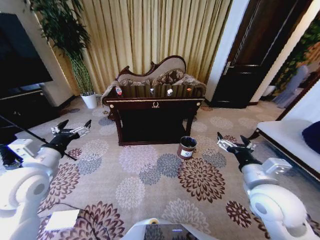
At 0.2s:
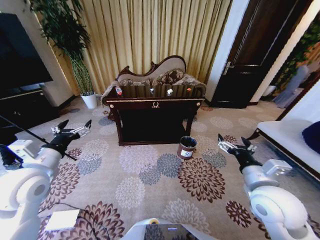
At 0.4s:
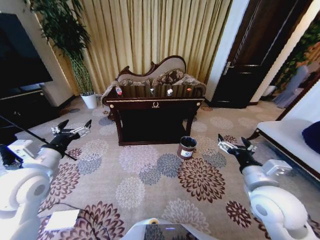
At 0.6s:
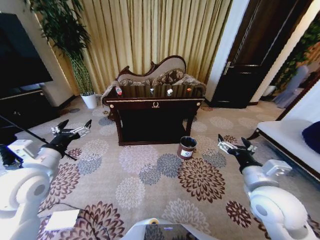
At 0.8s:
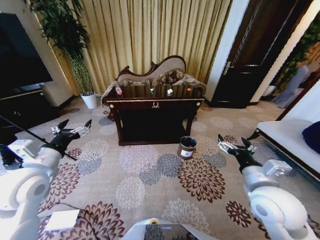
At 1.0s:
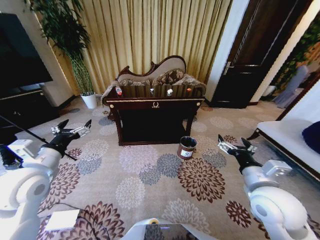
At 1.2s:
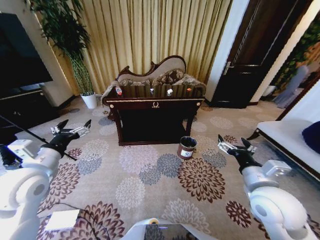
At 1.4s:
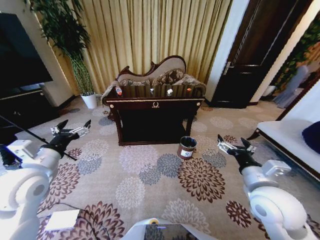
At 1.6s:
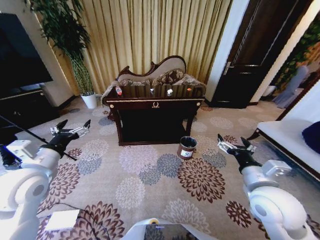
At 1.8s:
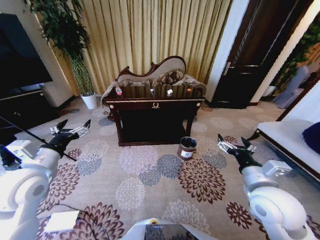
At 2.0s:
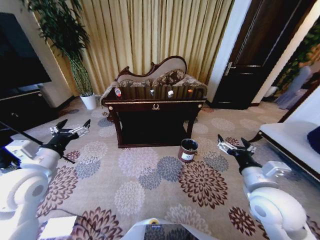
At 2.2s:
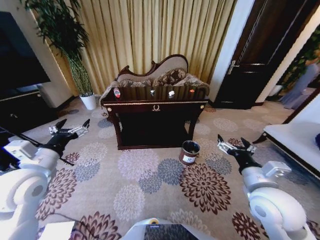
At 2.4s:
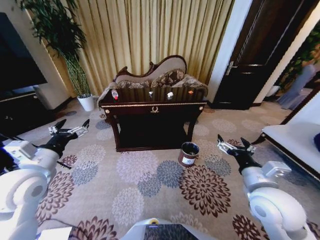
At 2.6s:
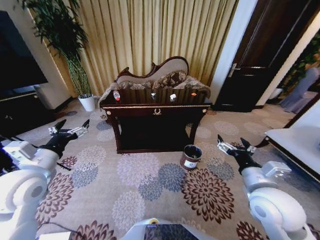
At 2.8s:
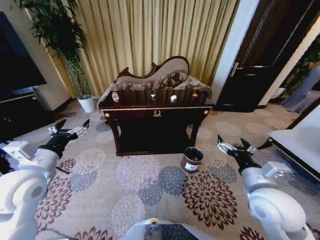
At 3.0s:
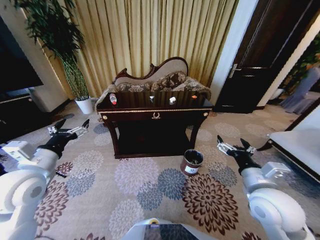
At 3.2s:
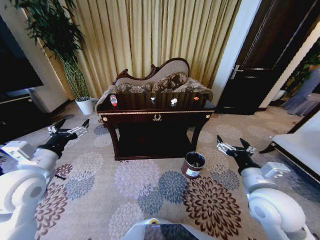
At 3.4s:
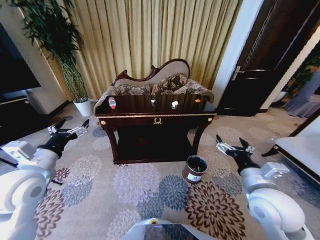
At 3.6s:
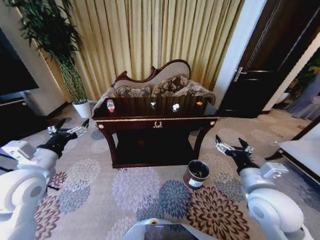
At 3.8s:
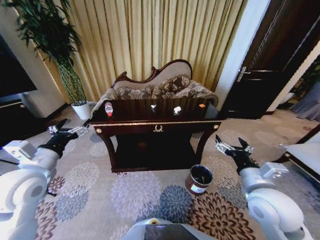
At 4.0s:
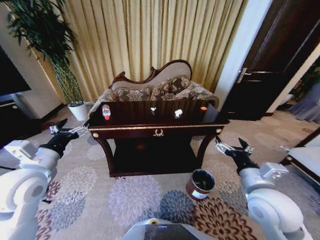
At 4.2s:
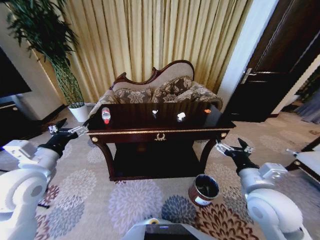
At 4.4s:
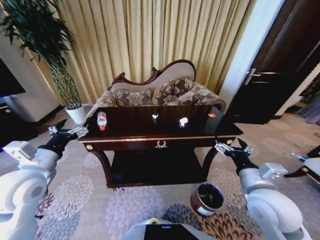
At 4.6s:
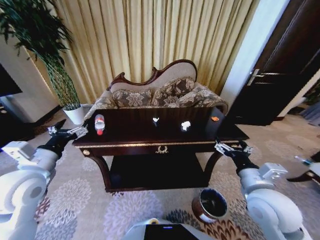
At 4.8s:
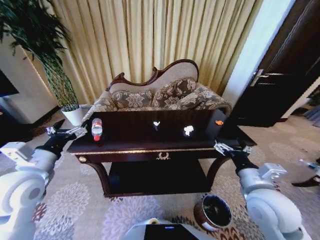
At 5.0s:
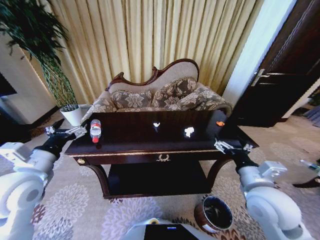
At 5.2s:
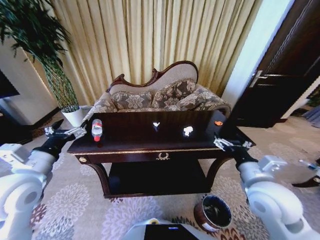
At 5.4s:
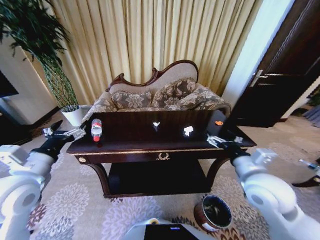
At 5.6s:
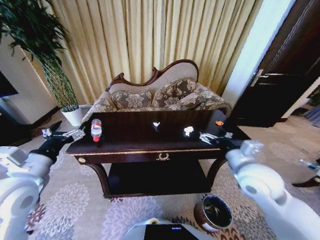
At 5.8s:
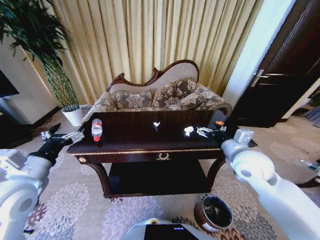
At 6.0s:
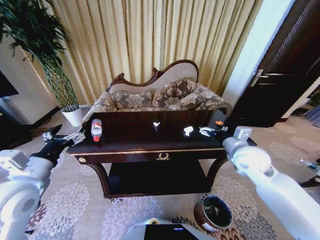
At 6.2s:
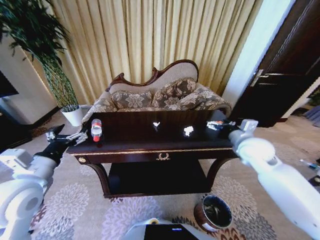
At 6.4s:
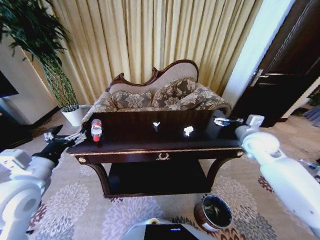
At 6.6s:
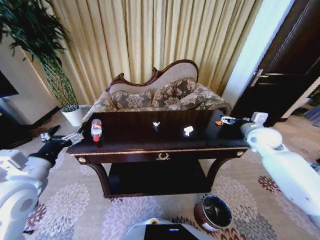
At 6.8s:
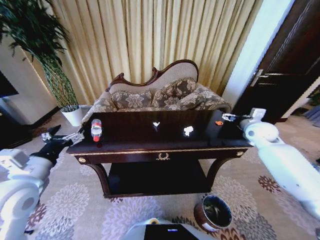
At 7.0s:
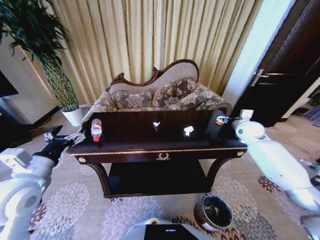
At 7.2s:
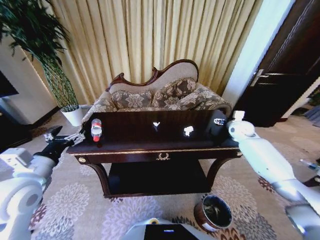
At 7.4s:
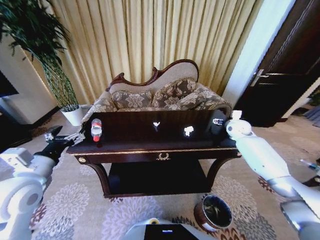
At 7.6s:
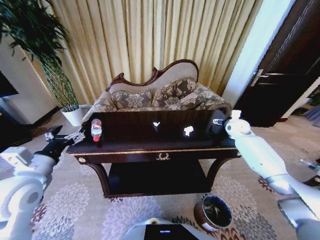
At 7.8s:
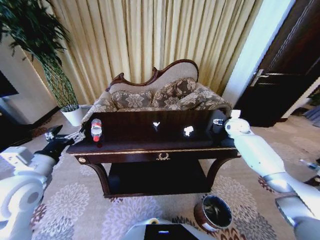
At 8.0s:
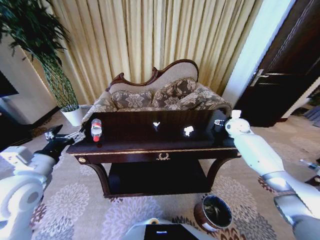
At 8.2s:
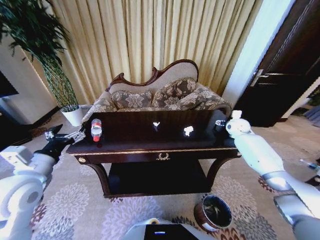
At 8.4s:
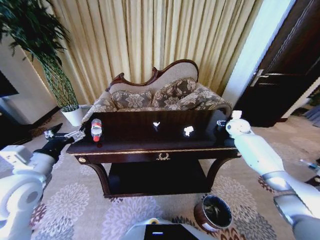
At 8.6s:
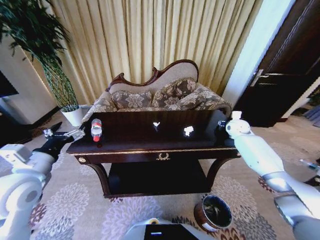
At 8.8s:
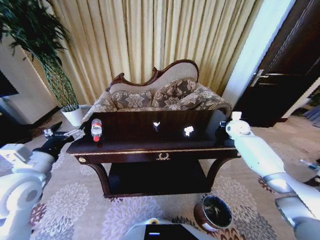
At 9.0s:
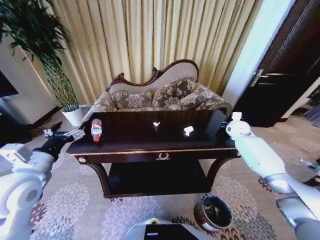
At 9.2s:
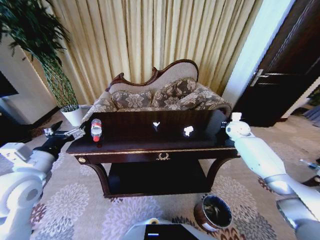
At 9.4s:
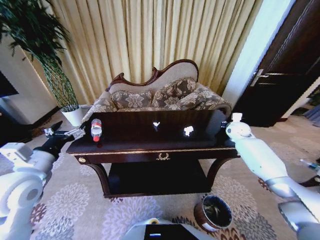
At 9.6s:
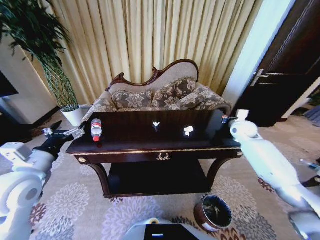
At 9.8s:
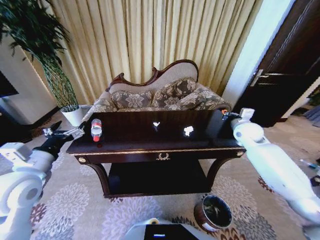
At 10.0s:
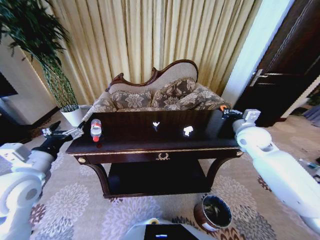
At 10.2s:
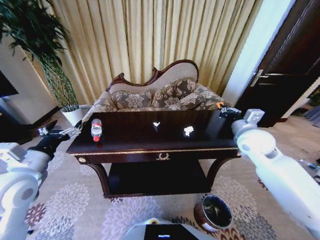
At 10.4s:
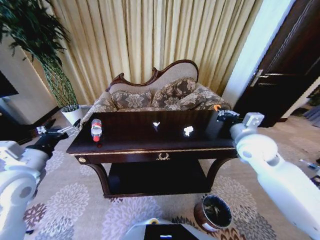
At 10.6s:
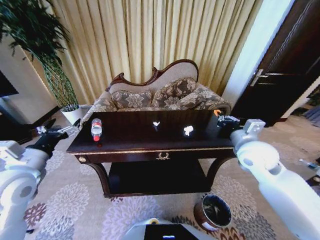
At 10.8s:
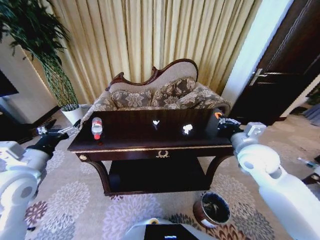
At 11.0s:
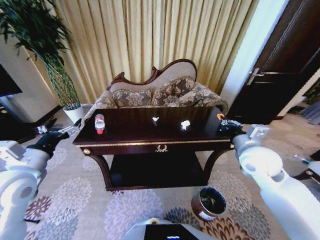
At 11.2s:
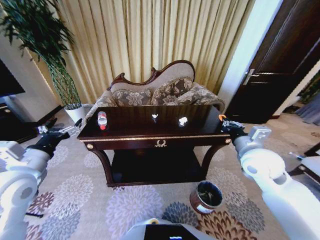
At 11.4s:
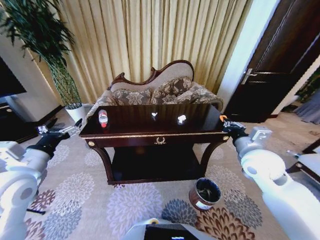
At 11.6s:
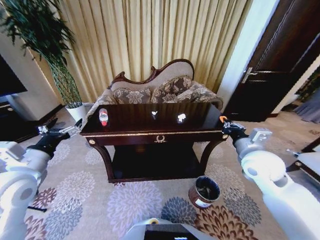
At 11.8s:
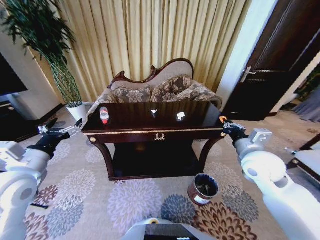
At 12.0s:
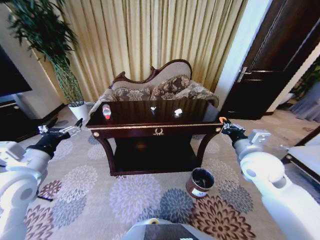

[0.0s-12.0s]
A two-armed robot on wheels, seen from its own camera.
Task of the whole recording: Move to the front of the table and place the trash on the table into the trash bin.
4.4s to 6.0s: The right gripper heads forward, covering approximately 15 cm.
6.0s to 7.6s: The right gripper travels forward and to the right by roughly 25 cm.
7.6s to 9.0s: The right gripper closes its fingers.
9.0s to 10.4s: The right gripper shifts roughly 25 cm backward, to the left and upward.
10.4s to 12.0s: The right gripper goes roughly 5 cm backward.

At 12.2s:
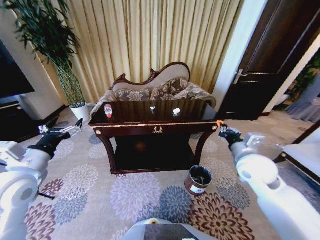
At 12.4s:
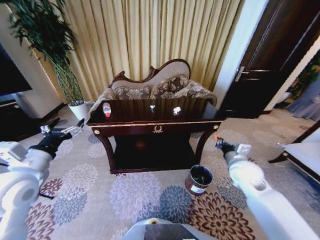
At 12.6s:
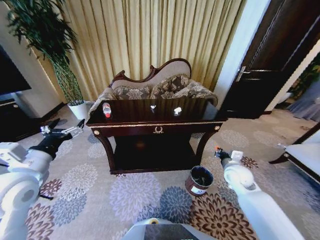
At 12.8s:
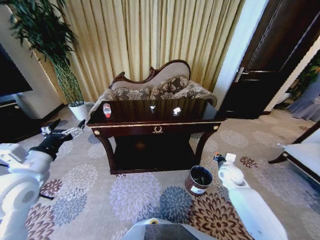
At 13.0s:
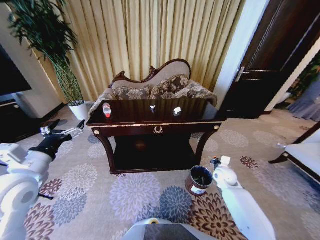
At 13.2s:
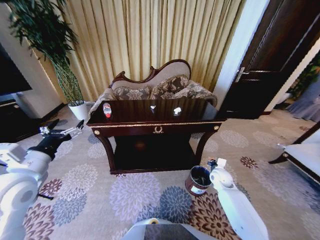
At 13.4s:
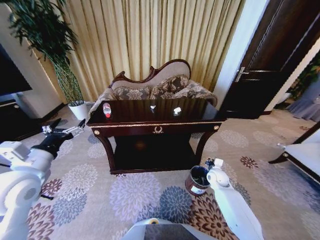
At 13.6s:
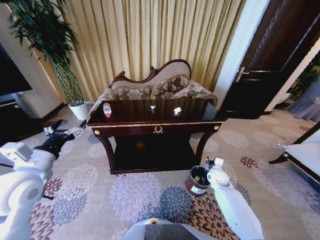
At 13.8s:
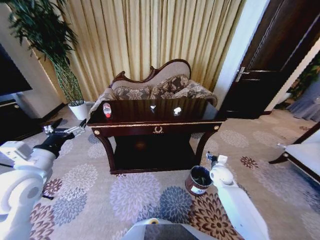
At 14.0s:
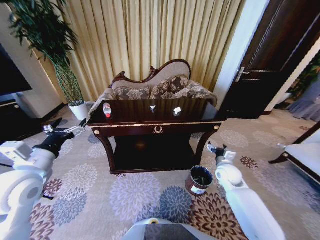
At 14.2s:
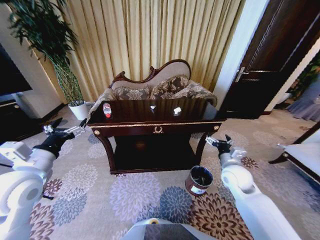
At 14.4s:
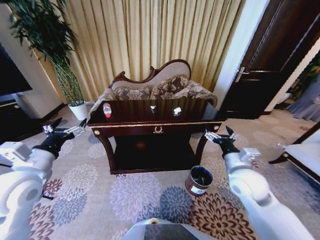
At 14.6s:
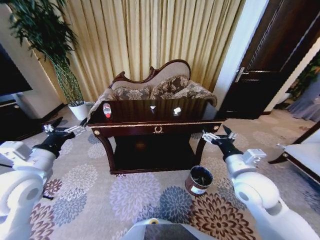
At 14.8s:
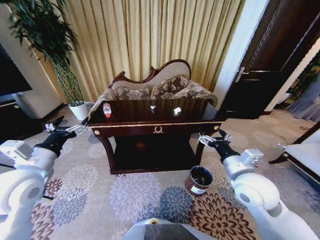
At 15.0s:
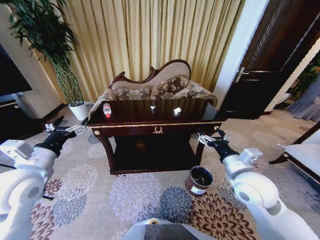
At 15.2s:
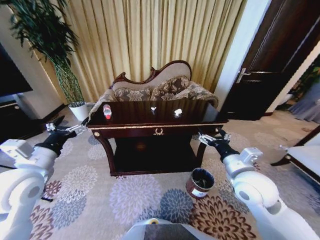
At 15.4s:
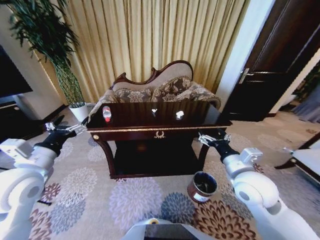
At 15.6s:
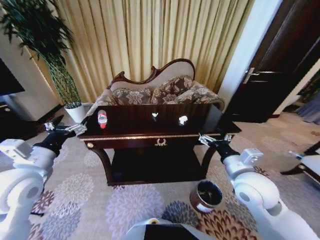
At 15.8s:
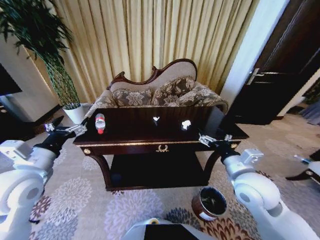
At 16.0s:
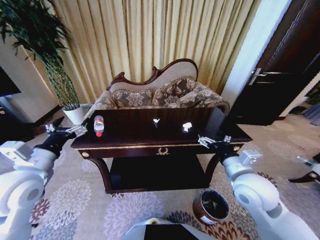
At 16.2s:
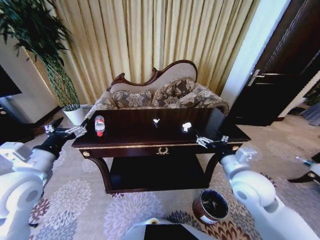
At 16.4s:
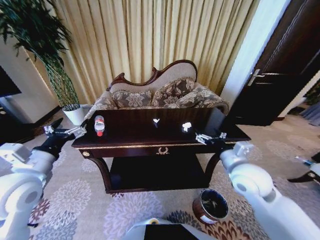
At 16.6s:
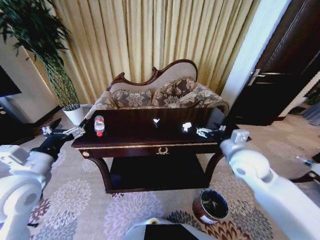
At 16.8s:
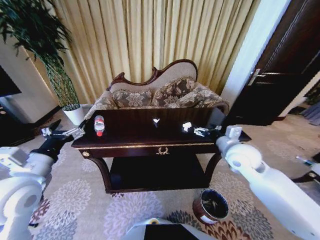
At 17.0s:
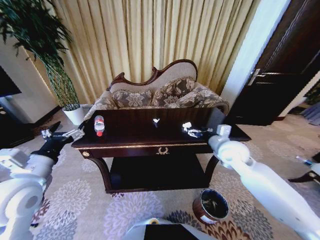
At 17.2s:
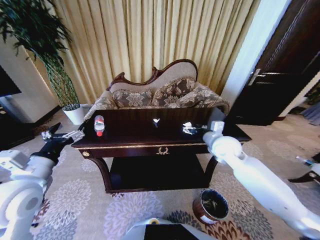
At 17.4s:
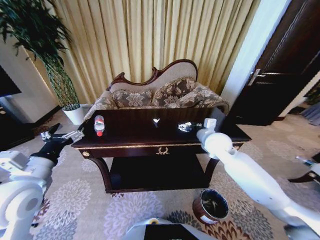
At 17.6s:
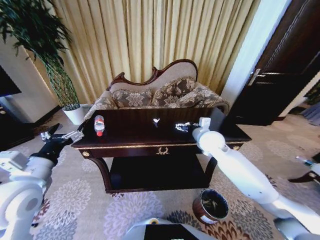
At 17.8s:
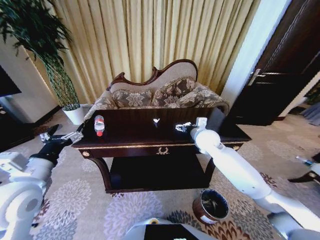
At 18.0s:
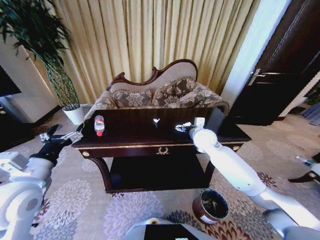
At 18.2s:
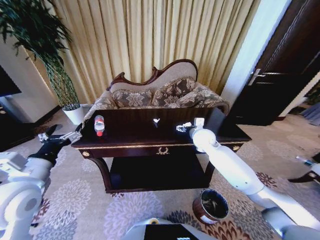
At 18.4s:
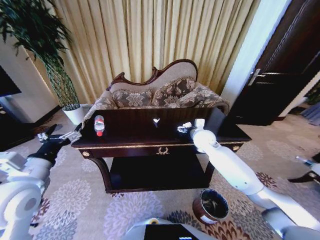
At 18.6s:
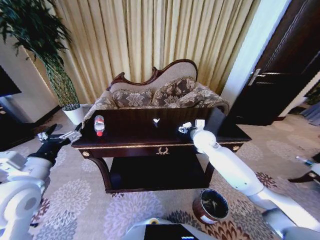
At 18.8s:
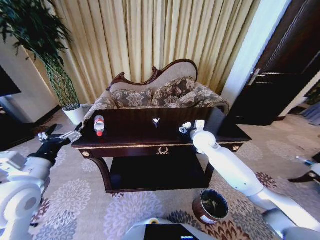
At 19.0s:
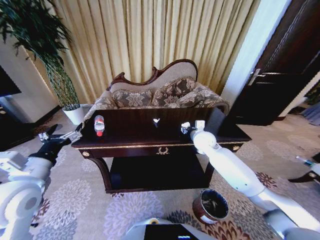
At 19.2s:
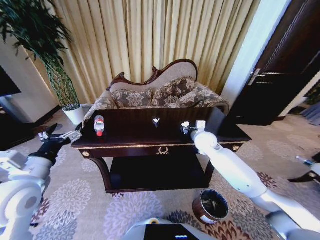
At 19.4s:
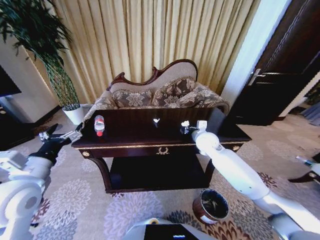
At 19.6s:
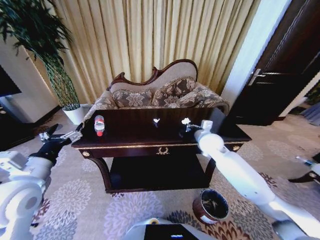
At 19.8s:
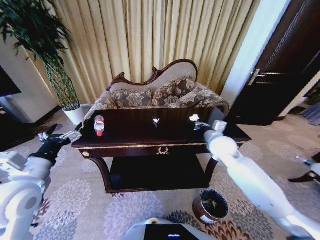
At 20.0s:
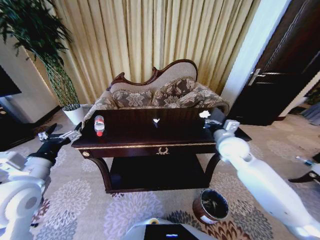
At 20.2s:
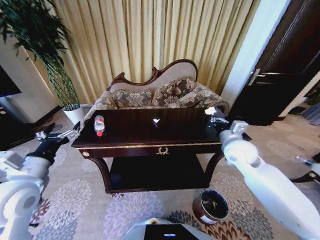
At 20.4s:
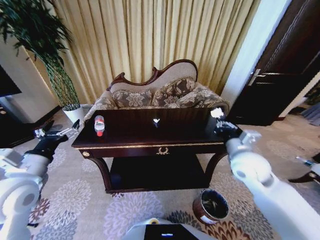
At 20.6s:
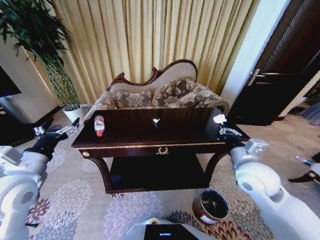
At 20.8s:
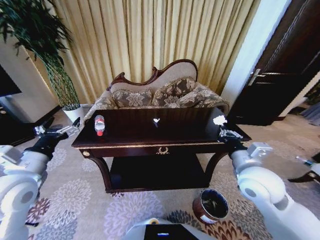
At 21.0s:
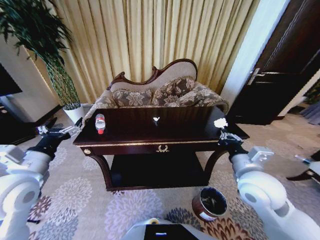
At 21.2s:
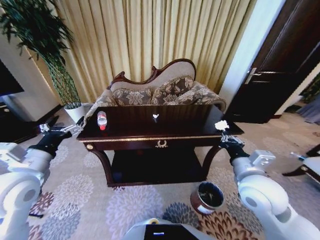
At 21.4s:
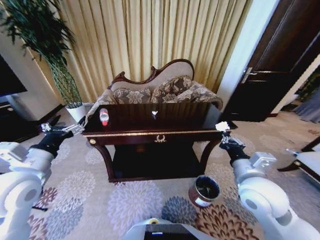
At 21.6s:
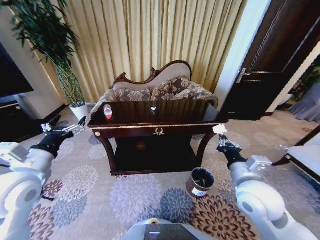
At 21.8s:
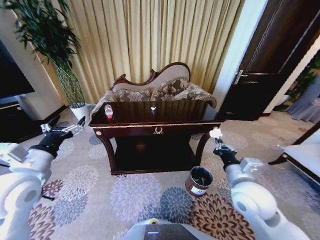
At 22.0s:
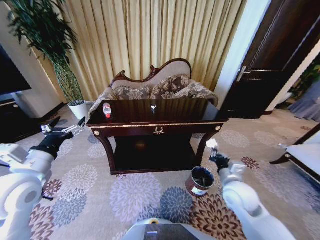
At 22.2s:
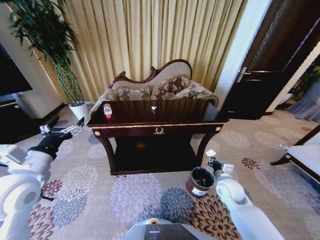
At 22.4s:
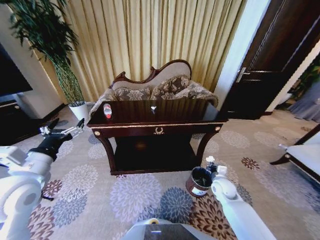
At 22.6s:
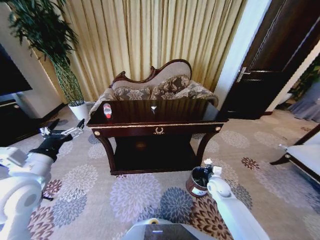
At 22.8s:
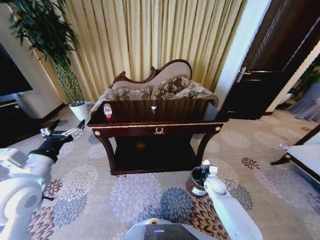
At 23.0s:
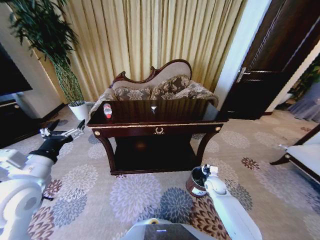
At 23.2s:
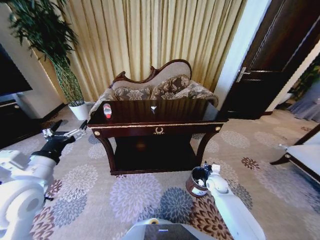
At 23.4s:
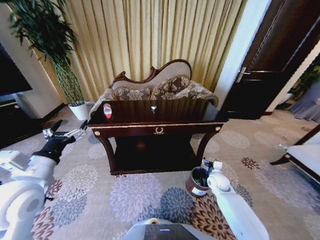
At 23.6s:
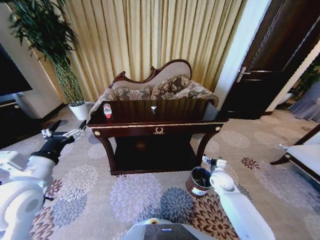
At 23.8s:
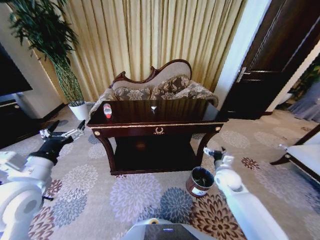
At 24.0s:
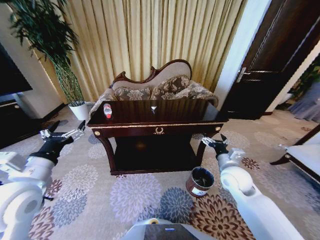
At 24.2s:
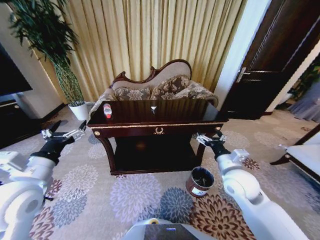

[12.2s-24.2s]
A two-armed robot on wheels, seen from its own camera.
Task of the whole recording: Move to the front of the table and place the trash on the table into the trash bin.
12.2s to 13.8s: The right gripper heads downward, covering about 20 cm, and opens.
13.8s to 15.2s: The right gripper goes about 25 cm upward and backward, and opens up.
15.2s to 16.6s: The right gripper shifts some 5 cm forward.
16.6s to 18.2s: The right gripper goes about 15 cm forward and to the left.
18.2s to 19.8s: The right gripper is displaced backward and to the right by some 10 cm, and closes up.
19.8s to 21.2s: The right gripper moves backward, about 20 cm.
21.2s to 22.6s: The right gripper moves downward, roughly 25 cm.
22.6s to 24.2s: The right gripper heads upward, covering roughly 20 cm, and opens up.
